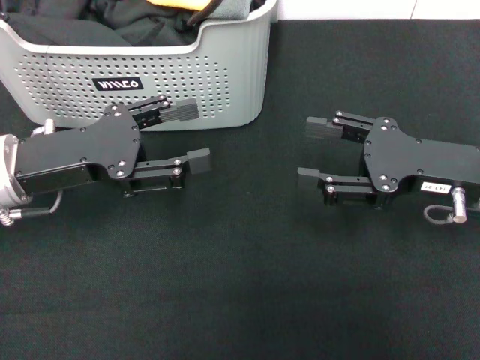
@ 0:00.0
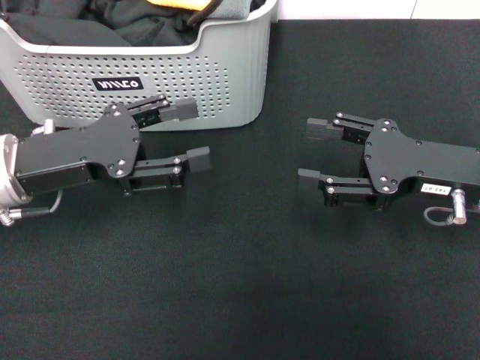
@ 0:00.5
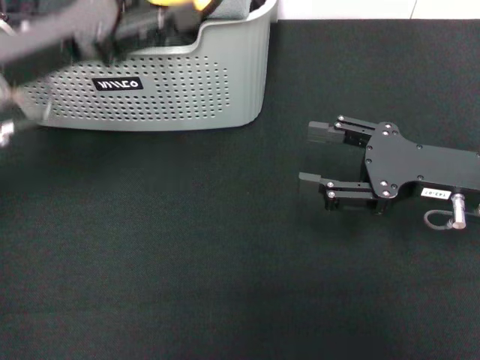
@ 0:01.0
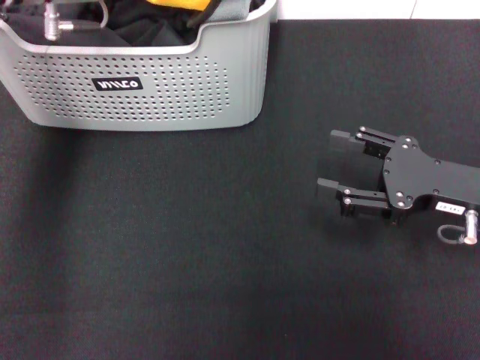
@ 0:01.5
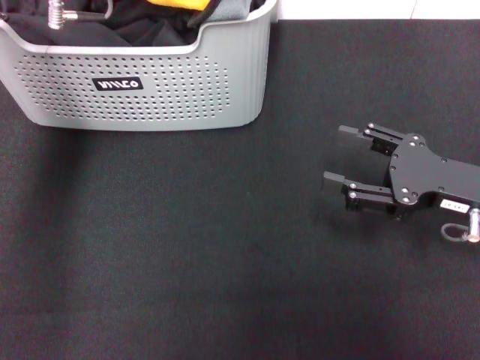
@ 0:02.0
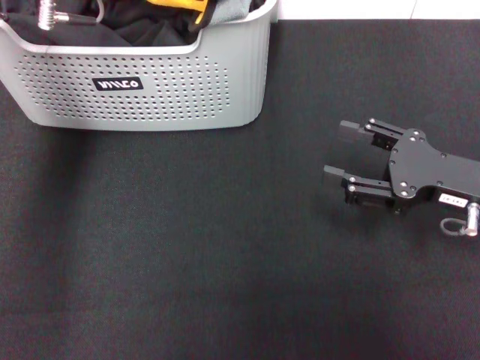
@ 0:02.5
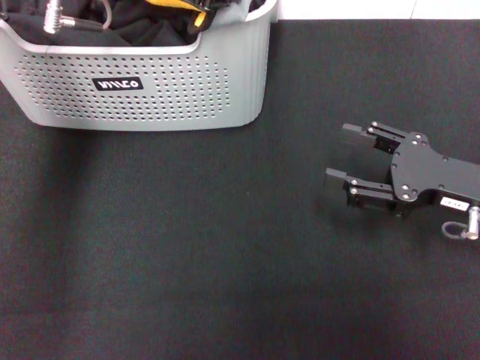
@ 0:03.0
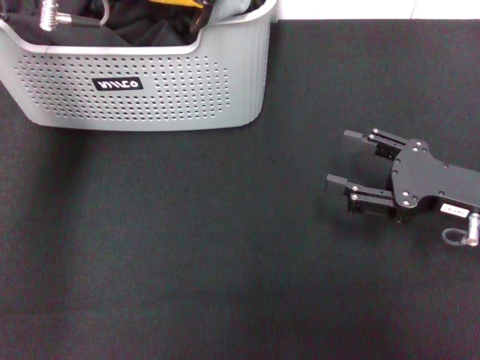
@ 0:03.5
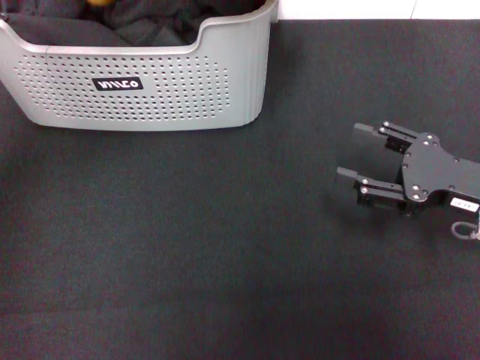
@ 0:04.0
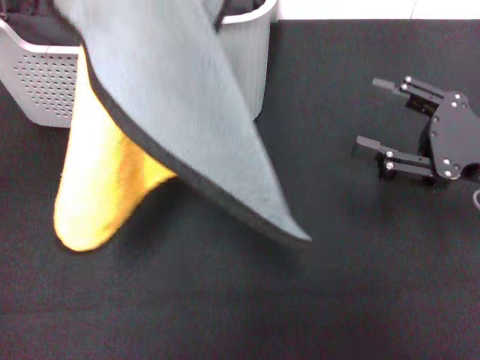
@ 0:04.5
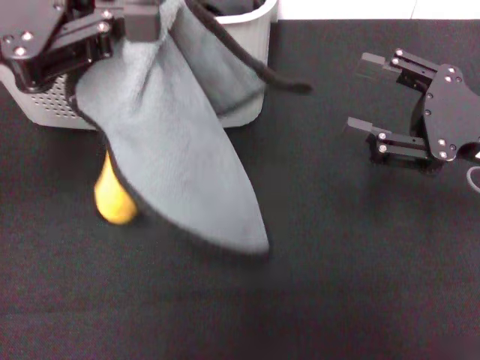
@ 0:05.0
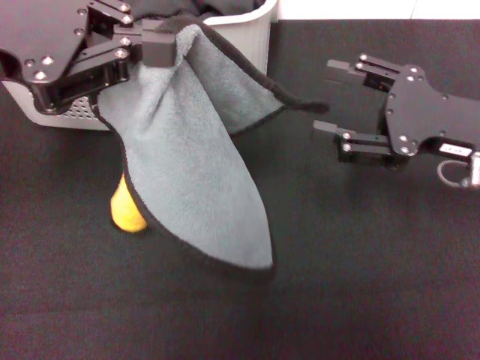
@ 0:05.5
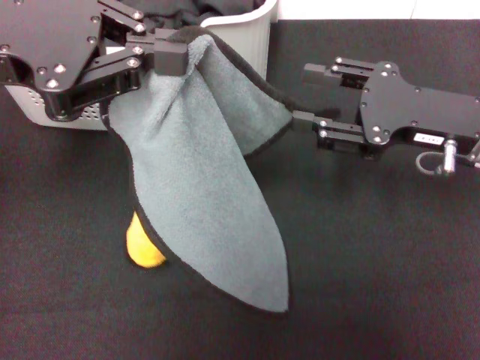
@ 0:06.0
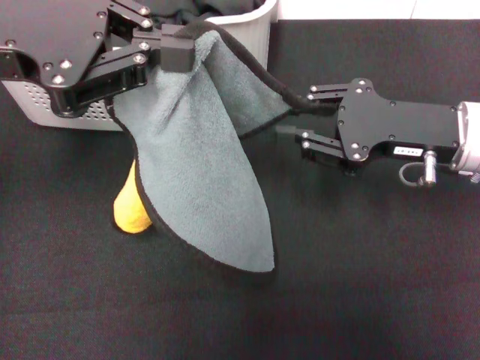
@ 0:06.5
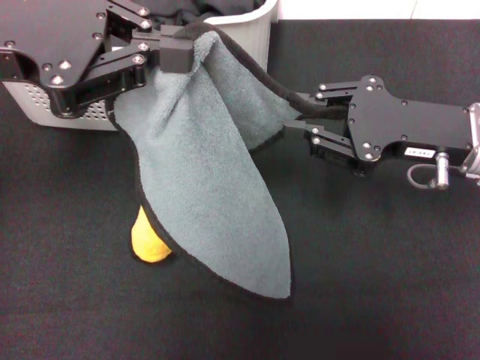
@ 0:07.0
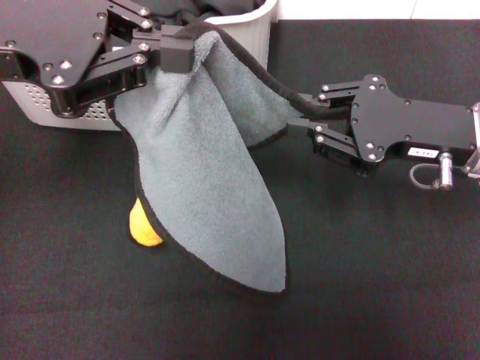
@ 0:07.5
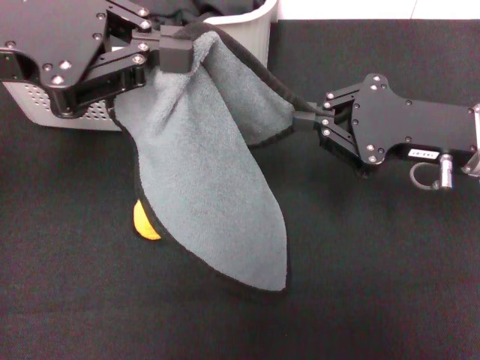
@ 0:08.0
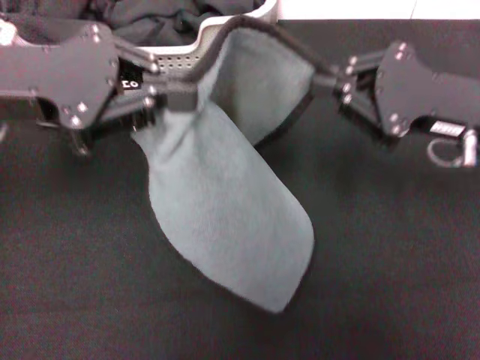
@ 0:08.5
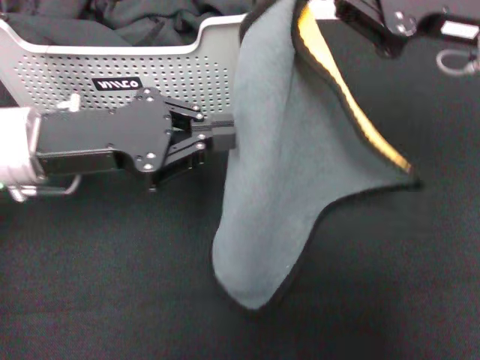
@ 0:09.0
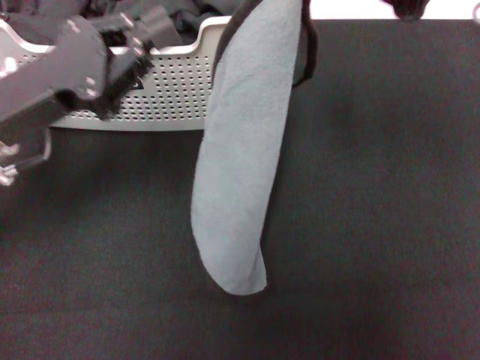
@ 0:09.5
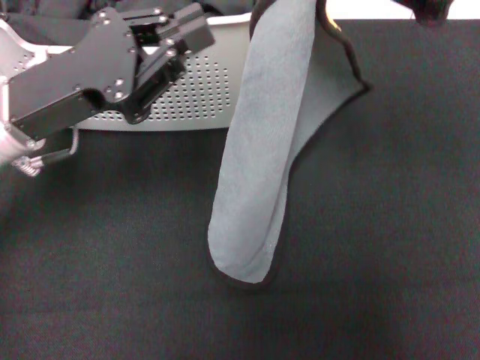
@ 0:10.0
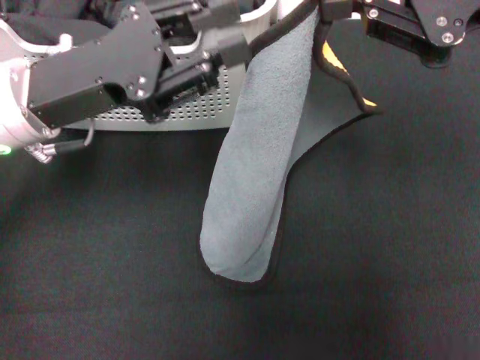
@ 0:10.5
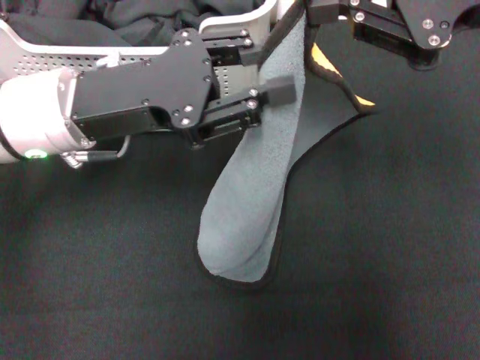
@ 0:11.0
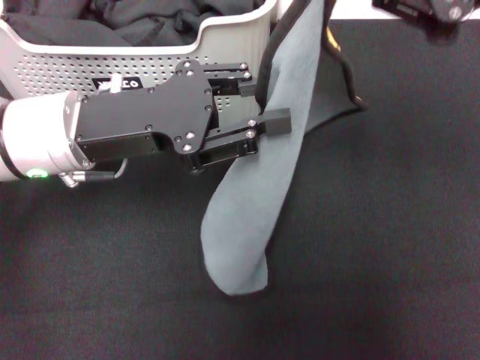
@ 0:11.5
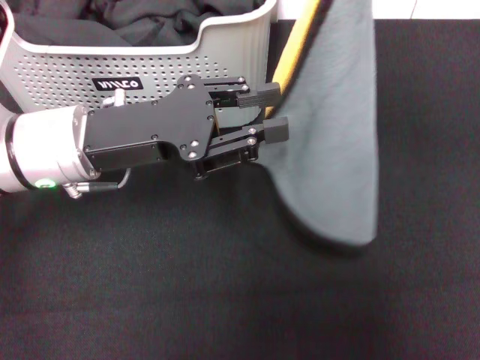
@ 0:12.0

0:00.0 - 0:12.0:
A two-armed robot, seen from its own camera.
Task of the whole recording: pick up the towel from the storage box and lay it flat on the black tablecloth.
Step, 0:00.0 - 0:02.0: Pick up a towel with the left gripper.
Step, 0:02.5 - 0:07.5: Spread the towel flat with the left gripper.
0:00.0 - 0:02.0: The left gripper is displaced upward, forward and to the right by roughly 20 cm.
0:02.0 - 0:04.0: The left gripper is displaced upward and backward by some 10 cm, and closes its fingers.
0:04.0 - 0:06.0: The left gripper ends up approximately 10 cm from where it was. Meanwhile the right gripper moves upward, roughly 5 cm.
0:06.0 - 0:08.0: The right gripper closes its fingers.
0:08.0 - 0:10.0: The right gripper heads upward, covering roughly 15 cm. The left gripper moves downward, roughly 10 cm.
0:10.0 - 0:12.0: The left gripper opens its fingers.

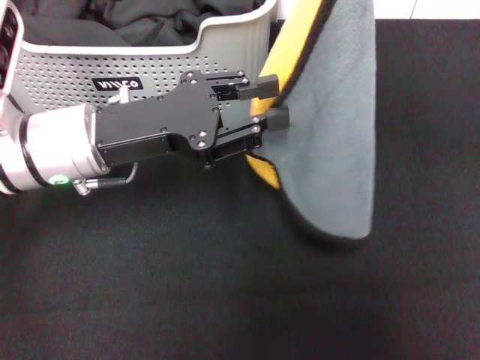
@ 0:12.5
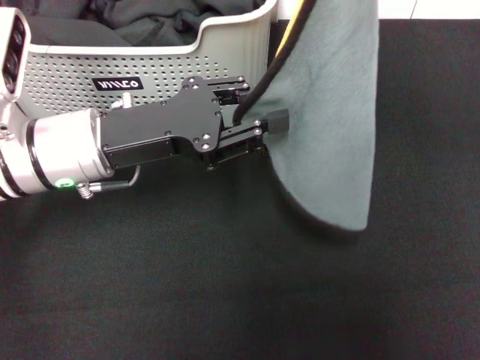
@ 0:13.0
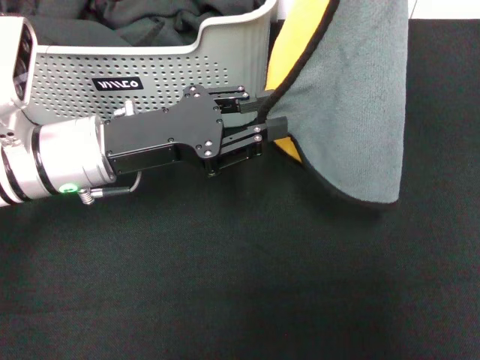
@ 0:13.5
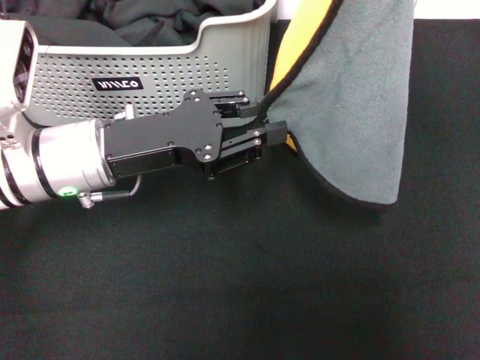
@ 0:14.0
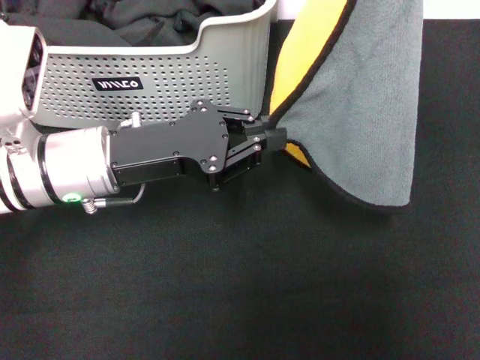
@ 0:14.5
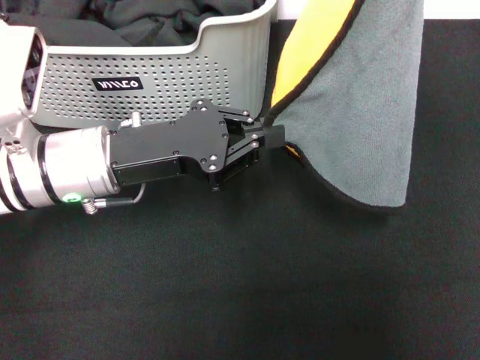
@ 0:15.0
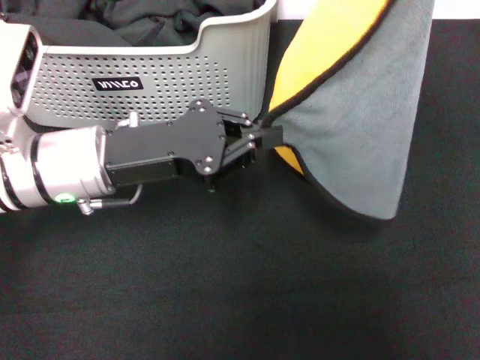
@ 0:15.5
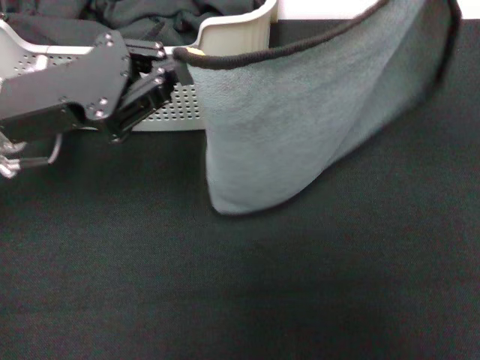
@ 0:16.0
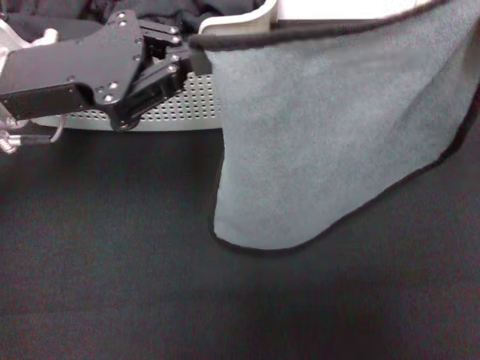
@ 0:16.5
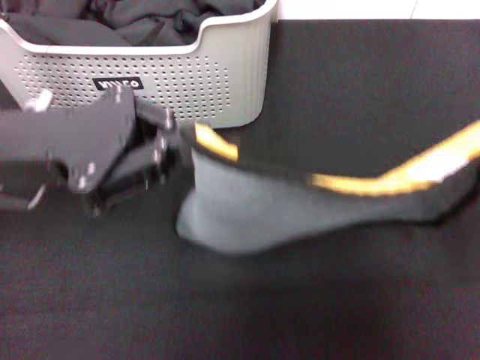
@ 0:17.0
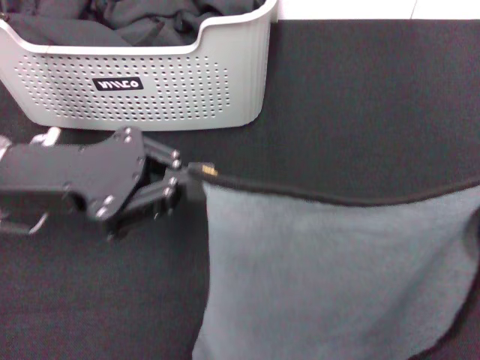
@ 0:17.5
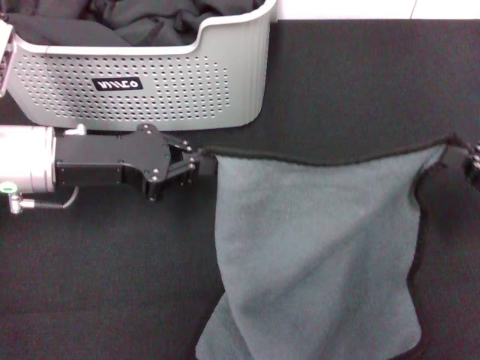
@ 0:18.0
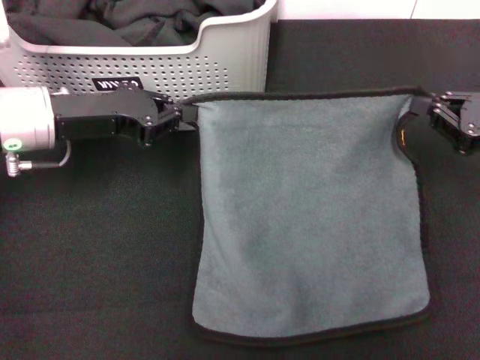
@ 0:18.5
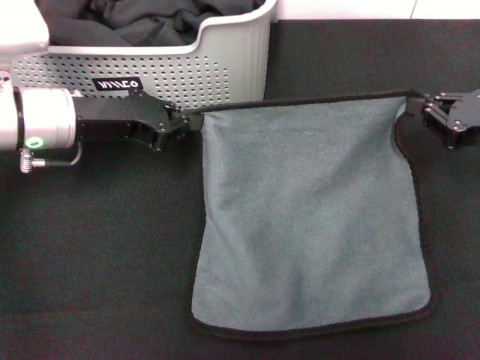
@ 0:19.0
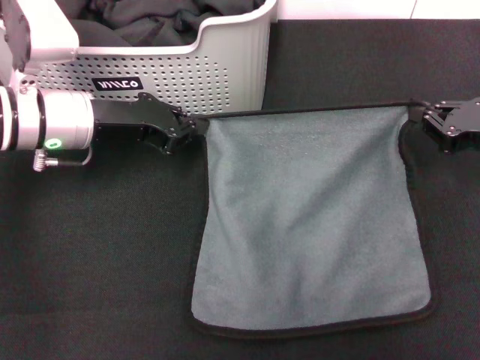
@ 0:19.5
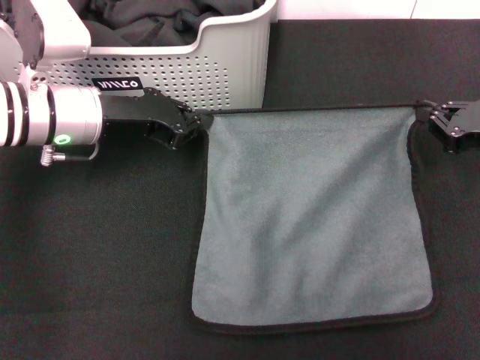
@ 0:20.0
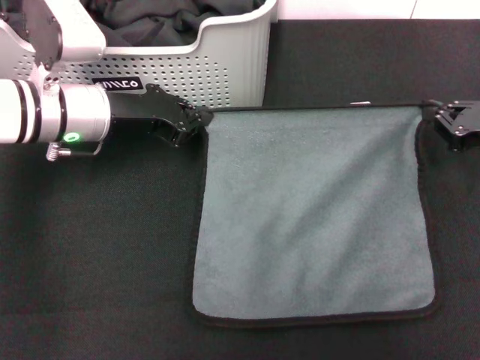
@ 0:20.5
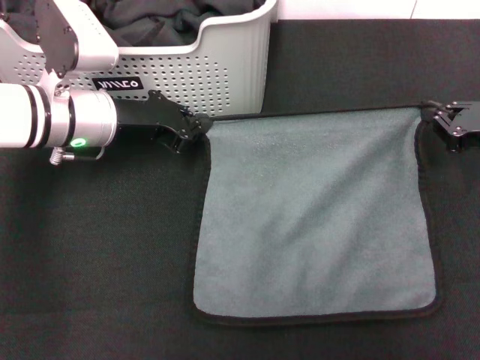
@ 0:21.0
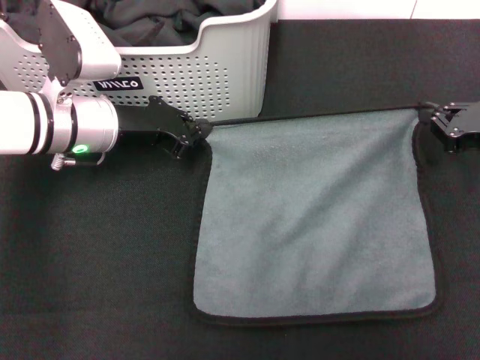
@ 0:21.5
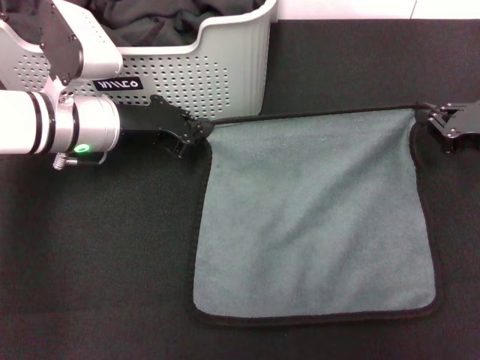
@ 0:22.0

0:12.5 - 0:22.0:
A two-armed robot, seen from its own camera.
Task of the whole recording: pick up the towel from the storage box and lay it flat on the black tablecloth.
0:14.5 - 0:16.5: The left gripper moves upward, some 5 cm; the right gripper travels downward and to the right by approximately 10 cm.
0:16.5 - 0:18.0: The left gripper shifts about 5 cm downward. Meanwhile the right gripper shifts approximately 15 cm downward.
0:18.0 - 0:20.0: The right gripper is displaced forward by approximately 10 cm. Meanwhile the left gripper travels forward by approximately 5 cm.
0:20.0 - 0:22.0: The grippers move only a little.

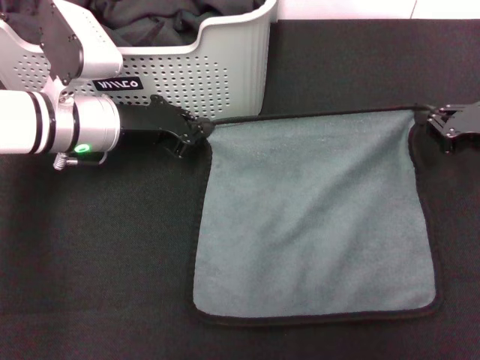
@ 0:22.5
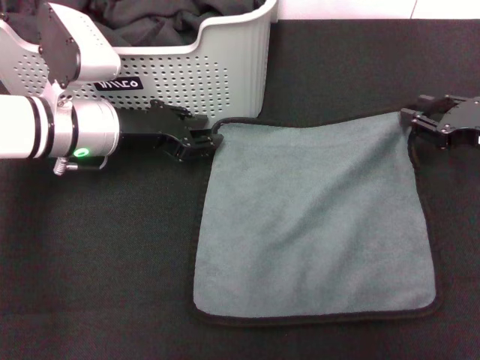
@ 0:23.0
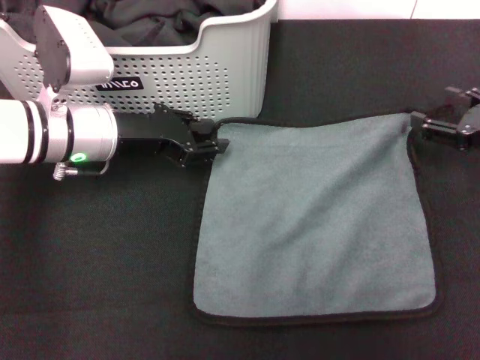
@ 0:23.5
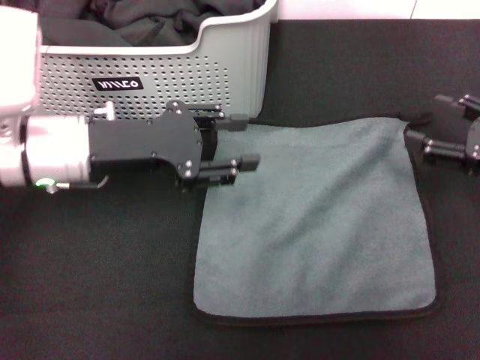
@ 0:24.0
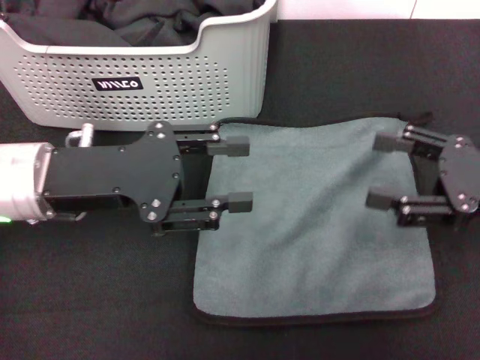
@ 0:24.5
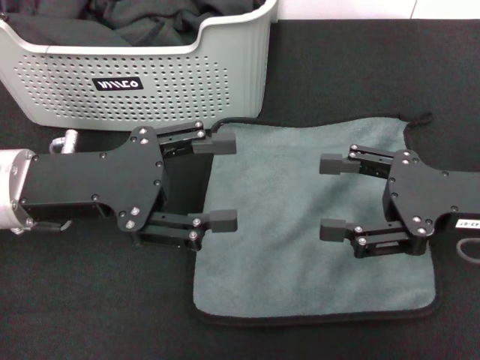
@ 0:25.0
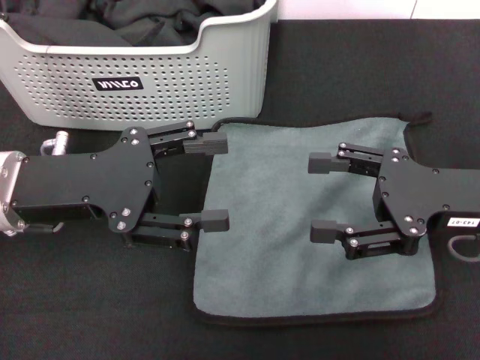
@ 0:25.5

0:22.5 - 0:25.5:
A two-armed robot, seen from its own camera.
Task of the whole recording: pick up the towel from the storage box and lay it flat on the black tablecloth.
0:22.5 - 0:24.0: The left gripper goes roughly 5 cm backward, and opens up. Meanwhile the right gripper ends up roughly 5 cm from where it was, and opens.
0:24.0 - 0:25.5: The left gripper moves backward, approximately 5 cm, and opens its fingers. Meanwhile the right gripper heads to the left, covering approximately 10 cm.
